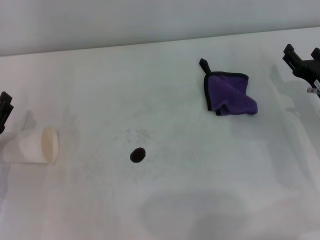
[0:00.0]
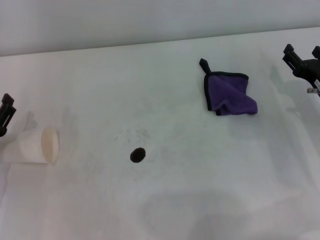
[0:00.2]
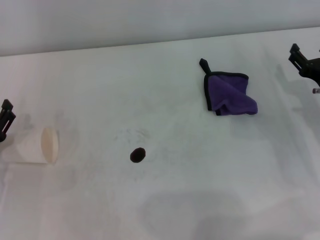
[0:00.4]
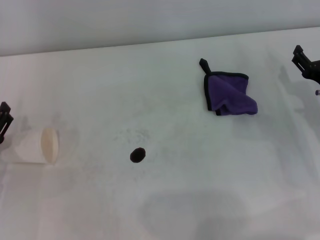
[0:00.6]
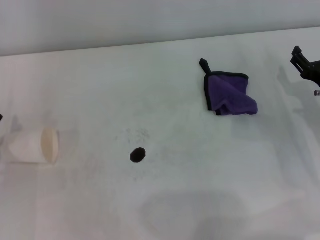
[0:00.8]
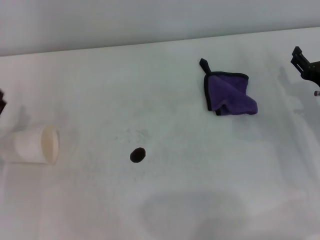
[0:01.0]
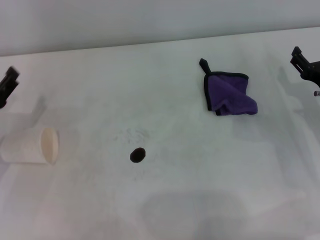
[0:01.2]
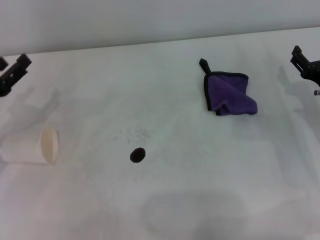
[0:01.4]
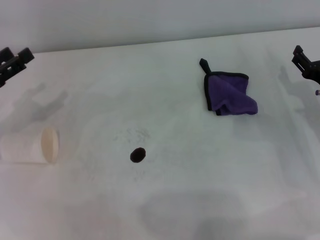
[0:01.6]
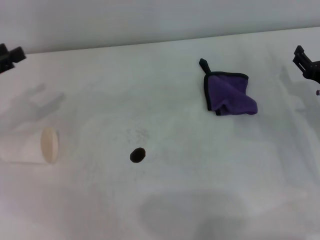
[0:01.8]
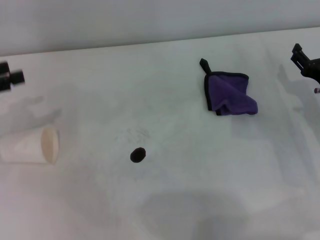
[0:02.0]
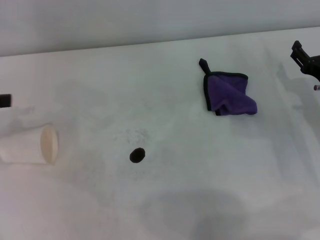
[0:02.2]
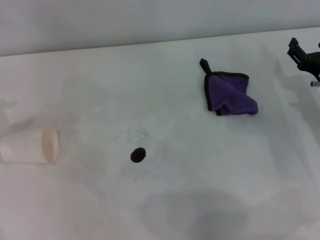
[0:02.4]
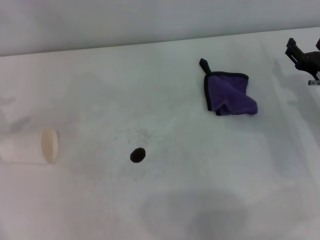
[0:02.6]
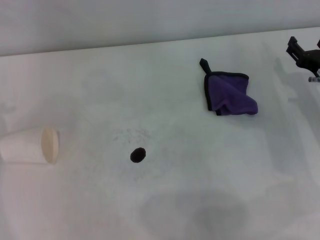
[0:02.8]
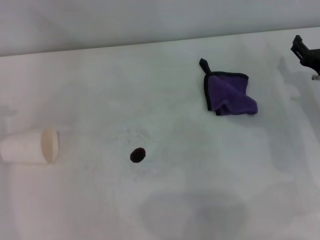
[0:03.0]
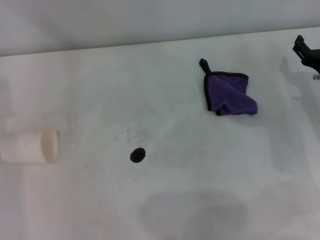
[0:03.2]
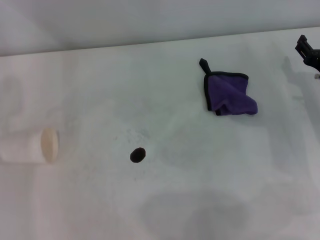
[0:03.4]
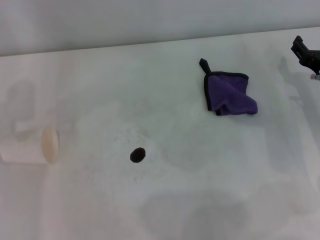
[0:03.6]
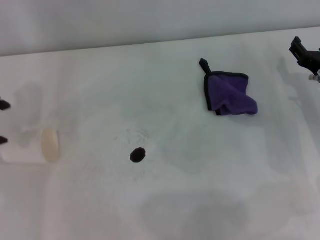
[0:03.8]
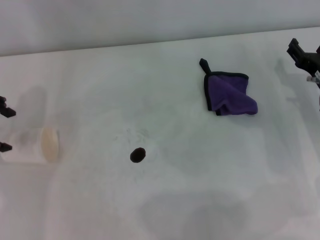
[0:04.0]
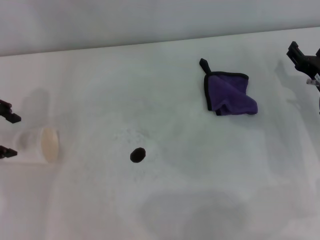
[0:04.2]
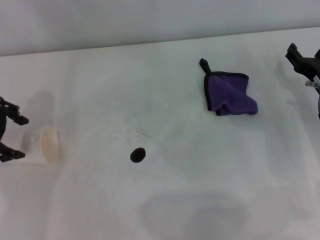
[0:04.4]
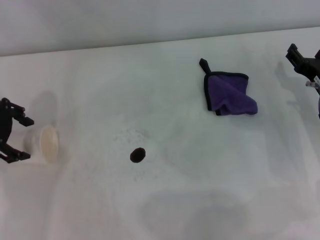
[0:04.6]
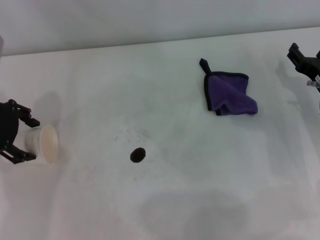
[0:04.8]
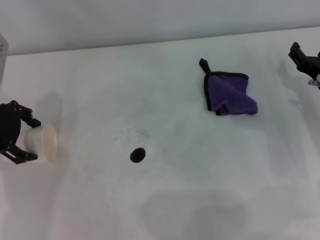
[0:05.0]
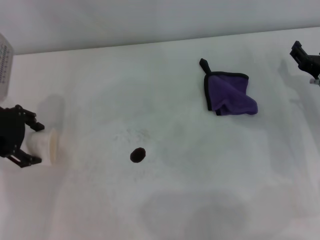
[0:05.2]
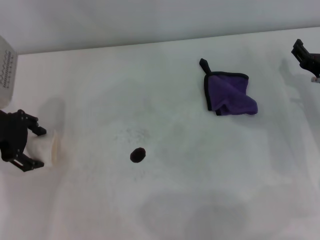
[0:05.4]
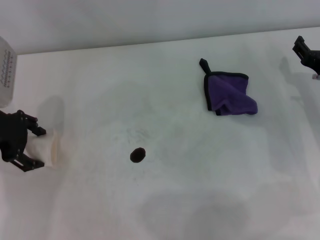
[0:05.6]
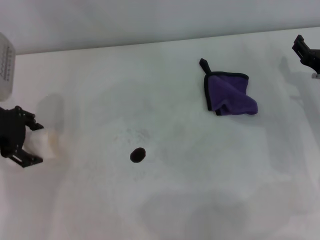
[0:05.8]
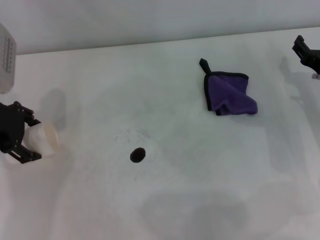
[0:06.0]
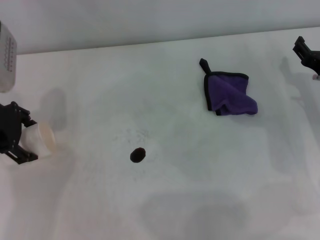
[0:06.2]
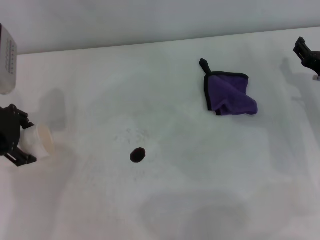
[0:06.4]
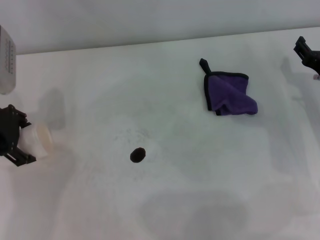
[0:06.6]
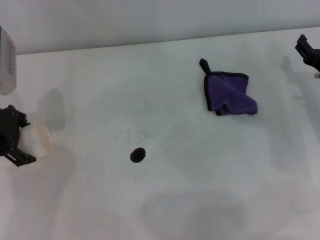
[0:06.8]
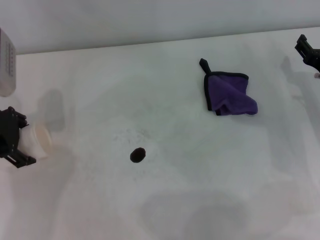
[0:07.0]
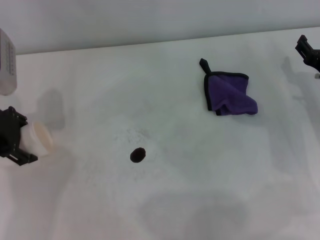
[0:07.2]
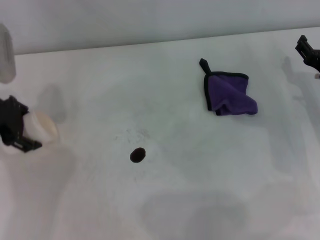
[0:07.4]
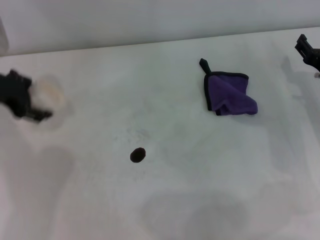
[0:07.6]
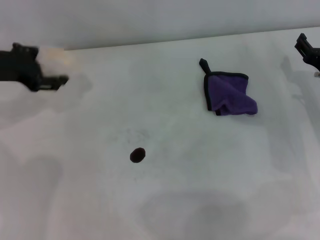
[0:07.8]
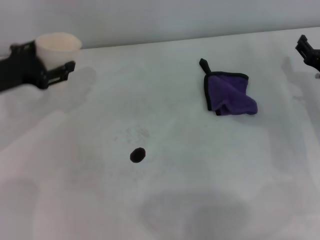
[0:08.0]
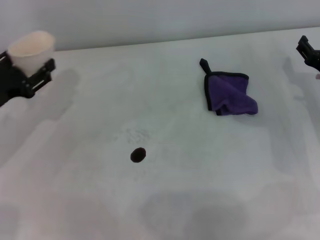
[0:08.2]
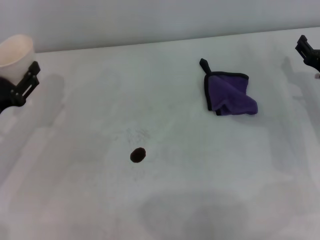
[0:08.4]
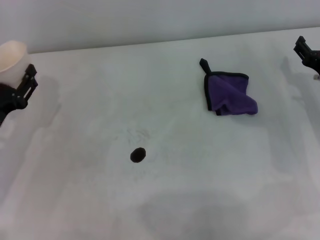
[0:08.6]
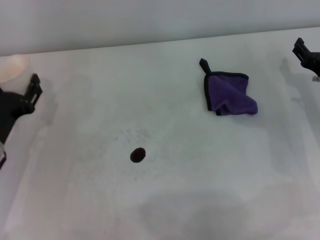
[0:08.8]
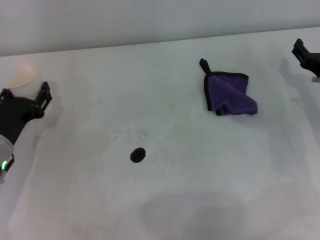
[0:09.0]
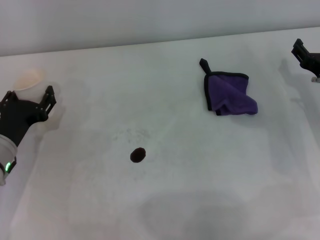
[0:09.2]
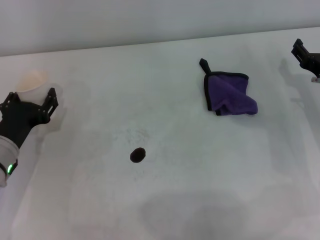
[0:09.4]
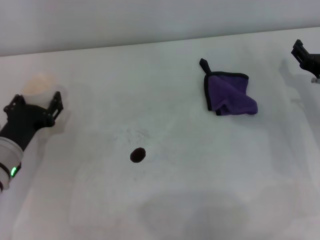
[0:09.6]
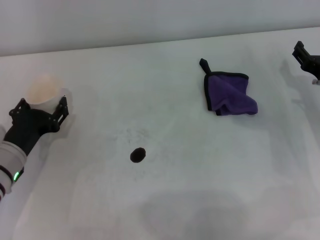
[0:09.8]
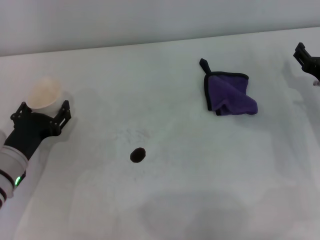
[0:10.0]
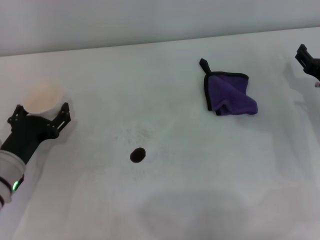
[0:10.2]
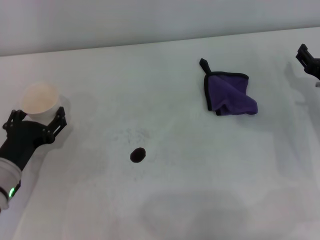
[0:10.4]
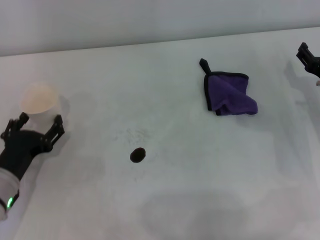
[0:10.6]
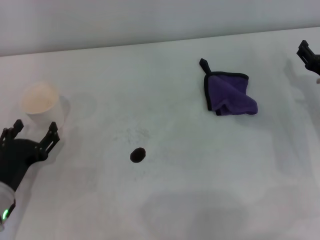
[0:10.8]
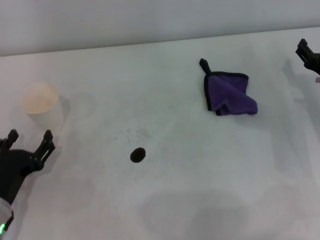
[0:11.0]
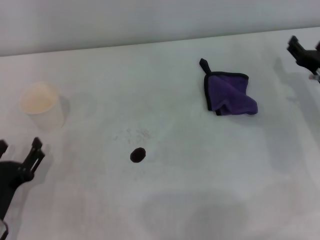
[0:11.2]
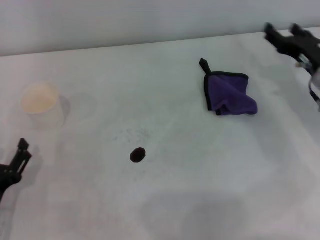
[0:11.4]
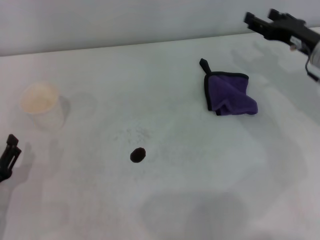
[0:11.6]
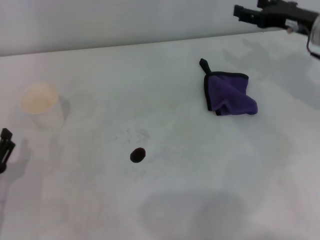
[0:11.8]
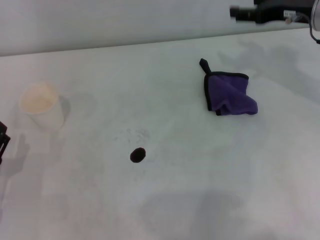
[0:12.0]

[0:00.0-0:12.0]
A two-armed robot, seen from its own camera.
Step, 0:00.0 to 0:07.0: Grasp the paper cup with the left gripper.
Step, 0:07.2 to 0:10.2: Stand the paper cup upright with the left gripper.
0:00.0 to 0:01.6: The left gripper goes approximately 10 cm upward and forward.
0:01.6 to 0:03.0: The left gripper is displaced upward by approximately 15 cm.
0:03.0 to 0:04.4: The left gripper travels to the right and downward by roughly 10 cm.
0:04.4 to 0:06.0: There are only small adjustments of the grippers.
0:06.0 to 0:07.6: The left gripper closes up.
0:07.6 to 0:09.0: The left gripper is displaced downward and backward by roughly 20 cm.
0:09.0 to 0:10.4: The left gripper opens.
0:10.4 to 0:12.0: The right gripper is displaced upward and forward by about 15 cm. Meanwhile the left gripper shifts roughly 5 cm backward.

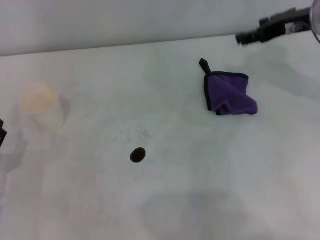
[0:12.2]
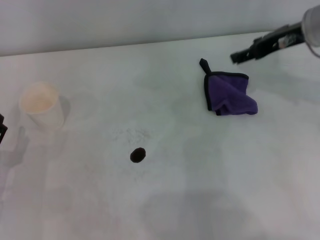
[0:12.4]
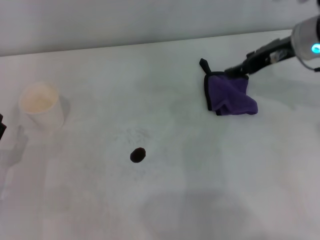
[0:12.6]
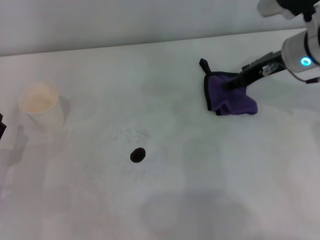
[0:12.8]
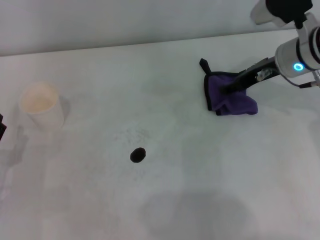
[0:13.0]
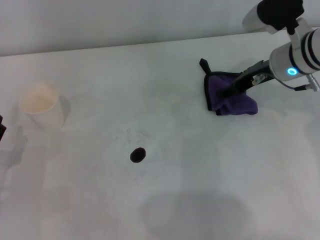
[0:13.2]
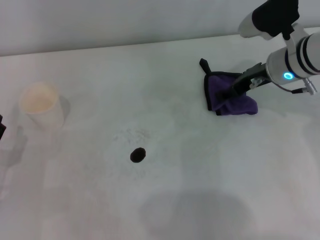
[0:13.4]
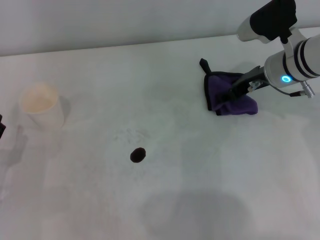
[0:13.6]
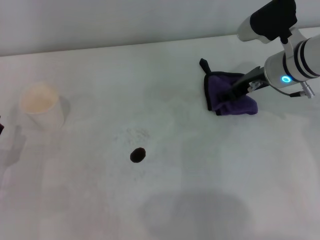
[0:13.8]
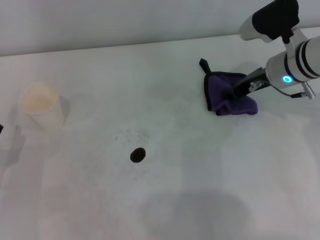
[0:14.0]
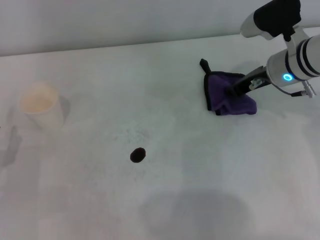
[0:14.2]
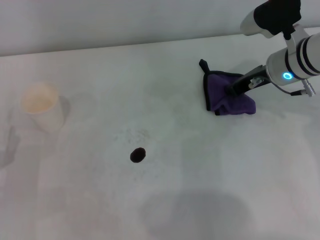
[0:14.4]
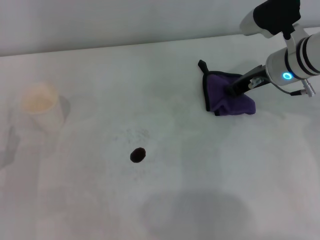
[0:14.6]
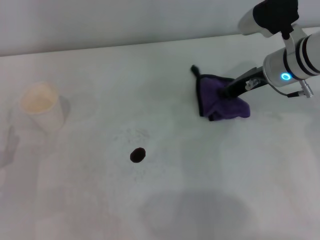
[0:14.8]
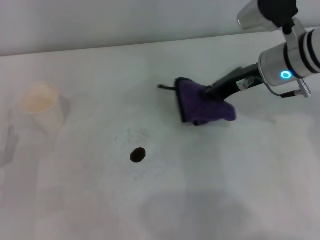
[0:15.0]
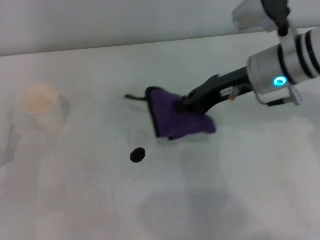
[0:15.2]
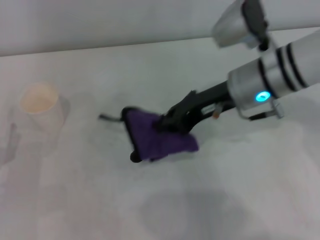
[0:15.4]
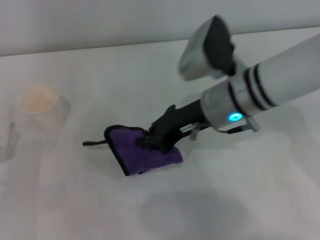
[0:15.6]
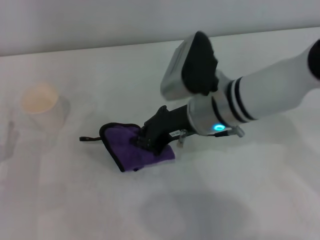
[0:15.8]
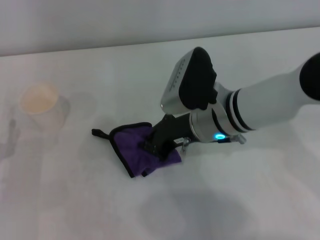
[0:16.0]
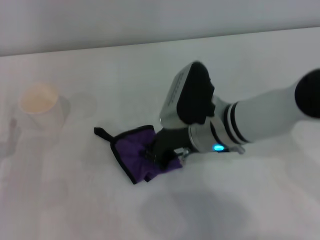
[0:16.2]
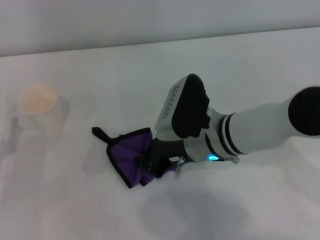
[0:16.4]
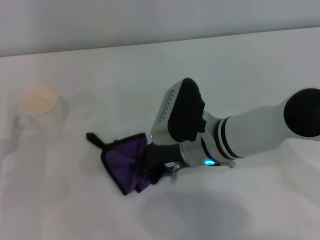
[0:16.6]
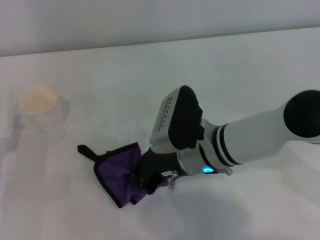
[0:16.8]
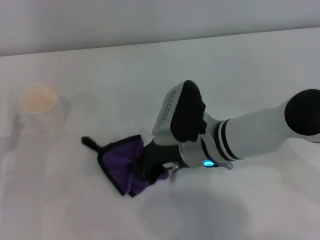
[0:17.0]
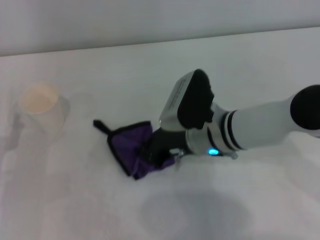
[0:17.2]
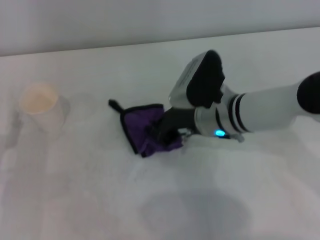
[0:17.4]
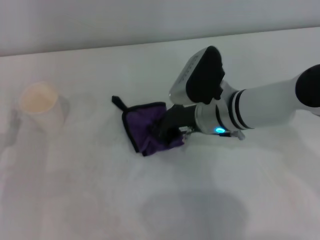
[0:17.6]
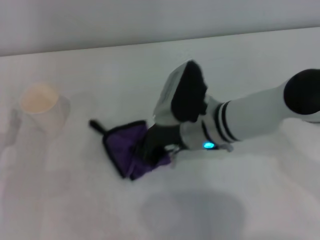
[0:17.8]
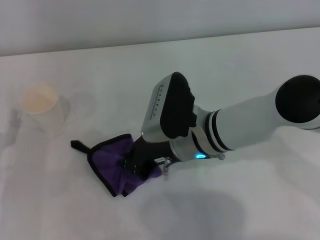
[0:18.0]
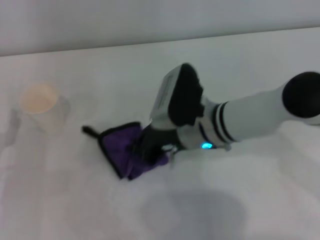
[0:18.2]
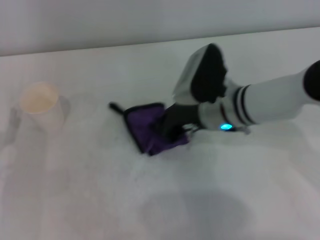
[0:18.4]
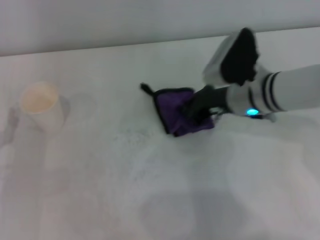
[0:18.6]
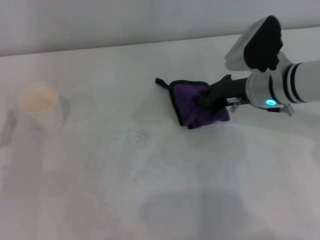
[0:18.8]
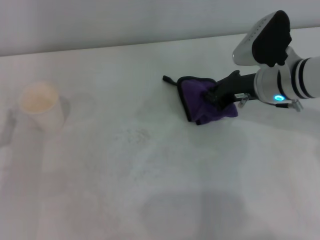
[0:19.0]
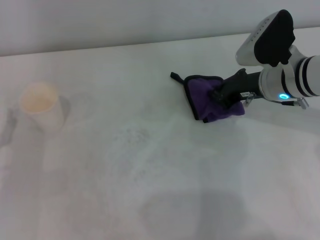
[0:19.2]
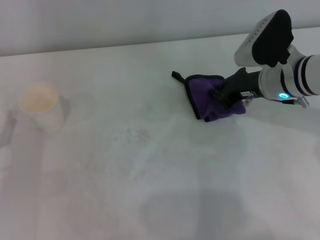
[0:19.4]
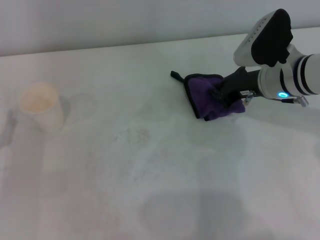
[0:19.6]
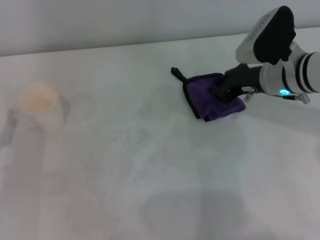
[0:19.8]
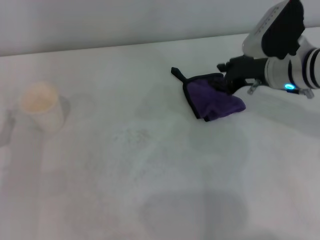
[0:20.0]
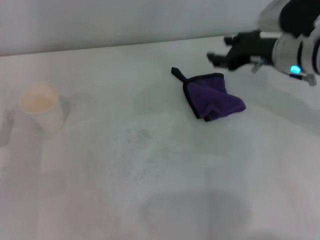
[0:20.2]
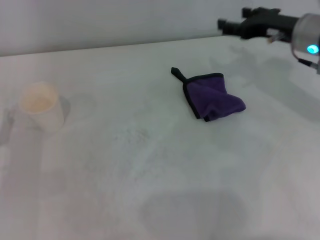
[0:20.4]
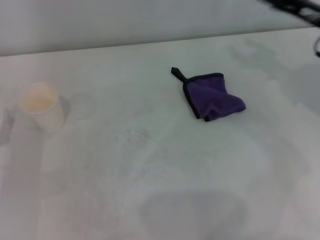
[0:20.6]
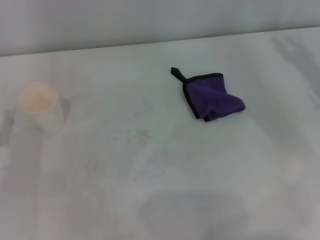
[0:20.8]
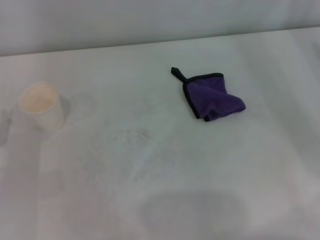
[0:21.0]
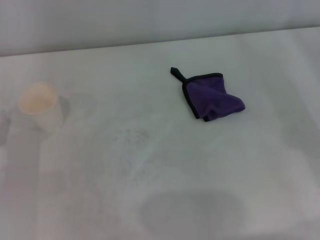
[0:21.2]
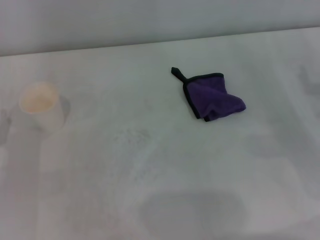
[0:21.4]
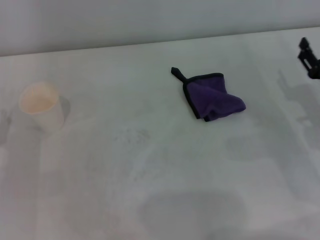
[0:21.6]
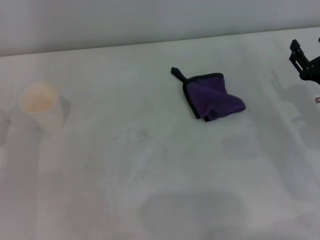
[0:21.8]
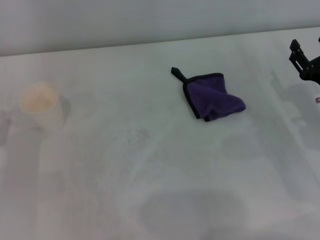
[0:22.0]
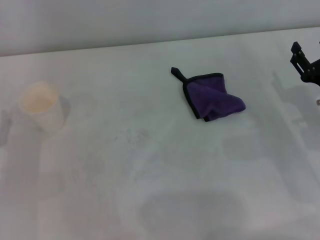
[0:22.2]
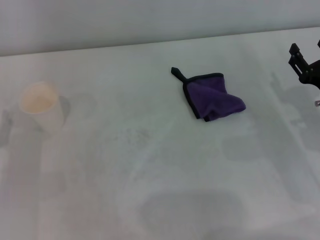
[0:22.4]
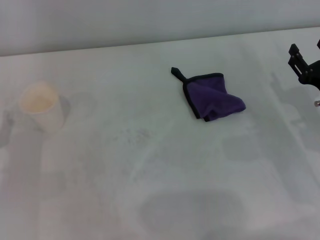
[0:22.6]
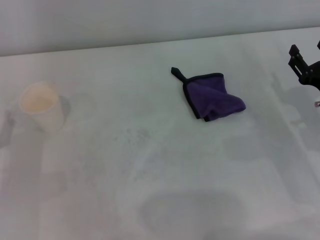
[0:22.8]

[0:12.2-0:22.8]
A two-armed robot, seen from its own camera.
Step, 0:12.2 to 0:14.2: Grasp the rag with the right gripper.
Step, 0:14.4 to 0:18.8: Wipe the stains off the table with the right gripper.
Step, 0:19.0 to 0:19.6: Place the rag on the table with the right gripper.
0:12.2 to 0:13.8: The right gripper moves downward, approximately 10 cm.
0:13.8 to 0:15.2: The right gripper goes about 5 cm upward, and closes its fingers.
0:15.2 to 0:16.8: The right gripper shifts roughly 15 cm to the left, downward and backward.
0:18.2 to 0:19.8: The right gripper goes roughly 15 cm to the right.
0:19.8 to 0:21.2: The right gripper moves to the right and backward, roughly 20 cm, and opens its fingers.
0:21.2 to 0:22.8: The right gripper travels to the left by some 10 cm.
